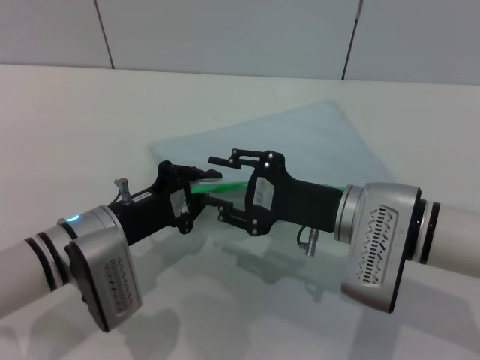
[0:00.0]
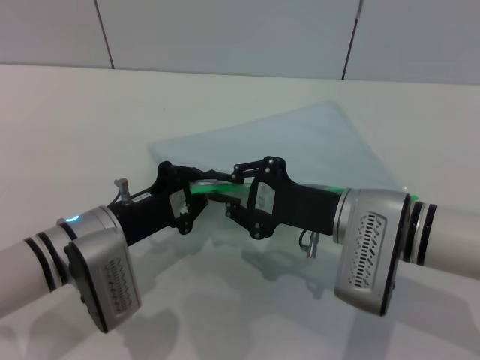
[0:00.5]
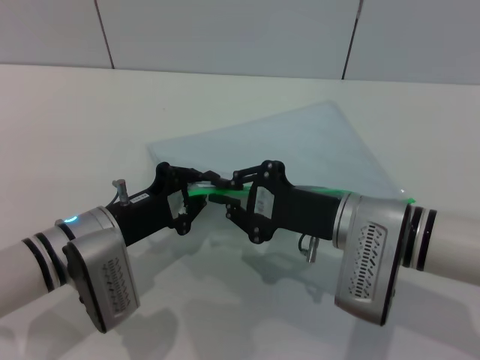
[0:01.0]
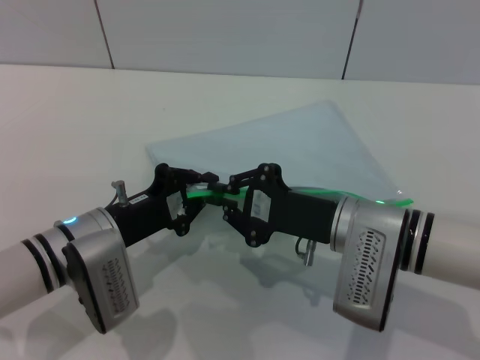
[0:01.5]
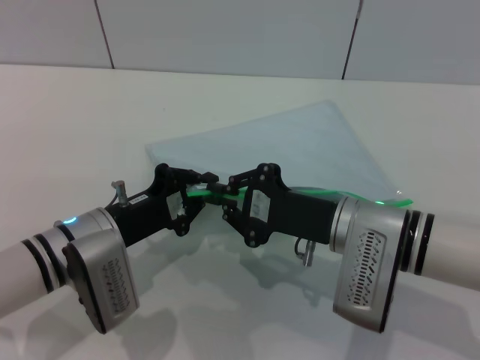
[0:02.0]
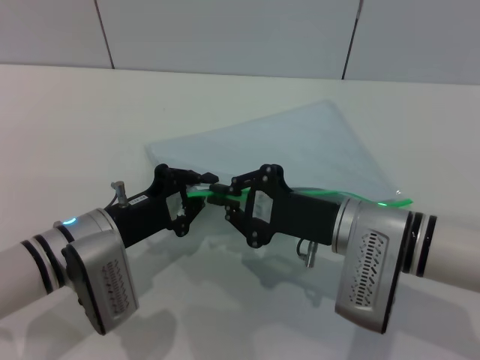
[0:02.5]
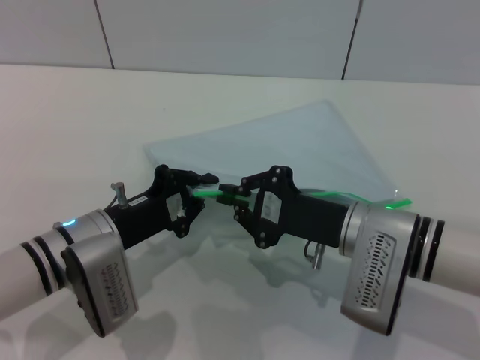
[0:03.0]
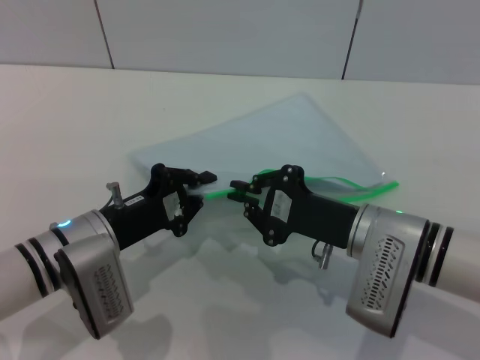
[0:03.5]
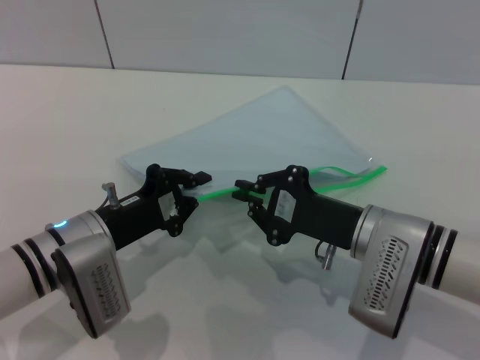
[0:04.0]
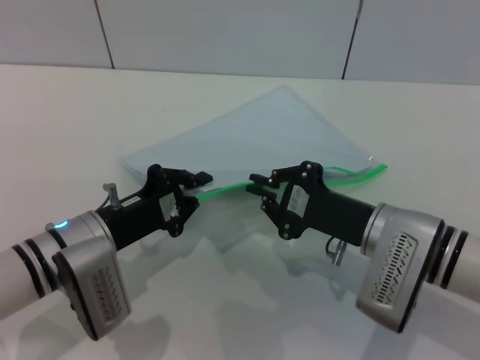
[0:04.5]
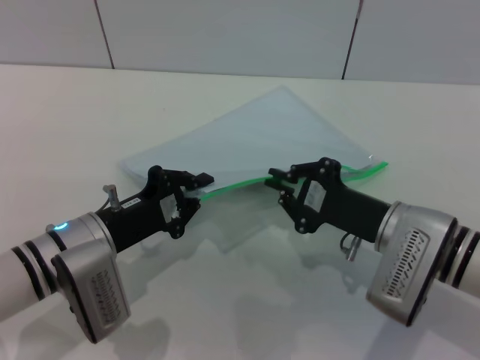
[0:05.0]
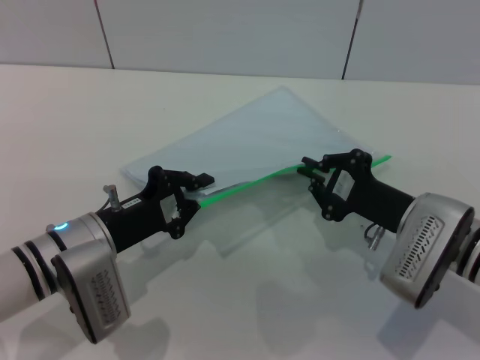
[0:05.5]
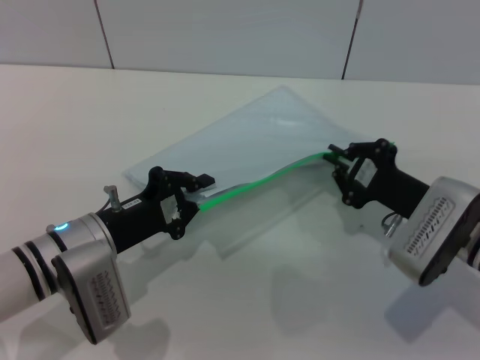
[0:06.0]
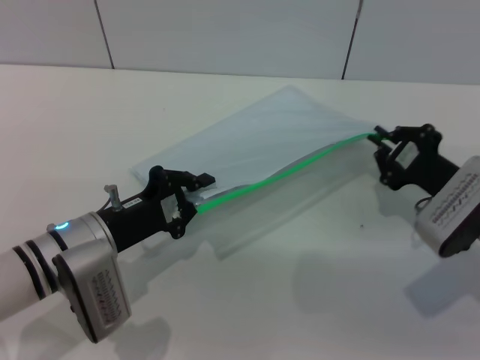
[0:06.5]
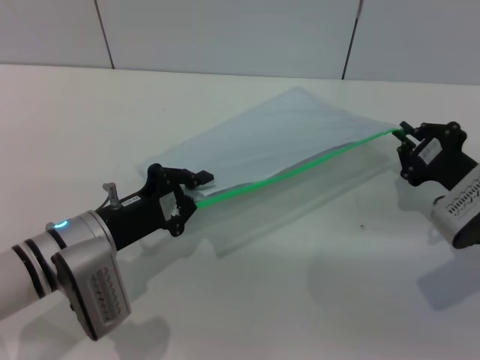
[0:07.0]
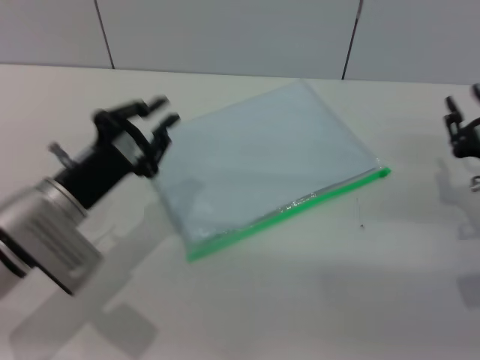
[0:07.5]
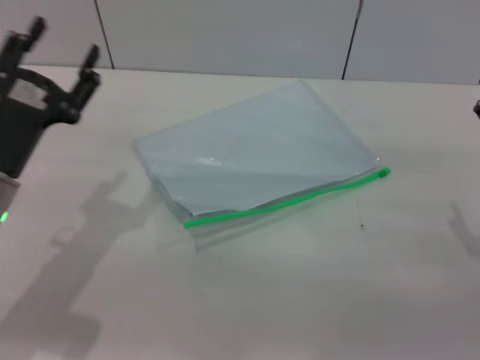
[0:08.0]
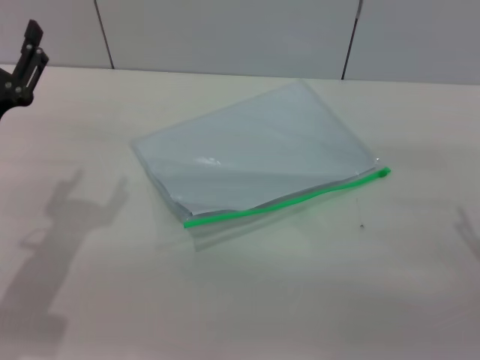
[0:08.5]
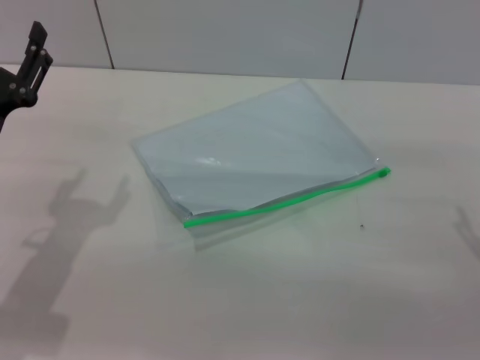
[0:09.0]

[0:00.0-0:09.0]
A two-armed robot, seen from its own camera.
Step, 0:00.0 to 0:07.0: Pulling up the zipper on the transparent plastic bag with the right gripper to close it.
0:00.0 to 0:02.0: The right gripper closes up.
0:02.0 to 0:04.5: The grippers make only small movements.
0:04.5 to 0:07.0: The right gripper heads to the right, covering roughly 10 cm.
0:07.0 to 0:09.0: The left gripper moves to the left and upward, some 10 cm, and opens up, while the right gripper goes some 10 cm backward, and opens up.
